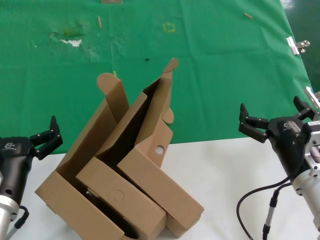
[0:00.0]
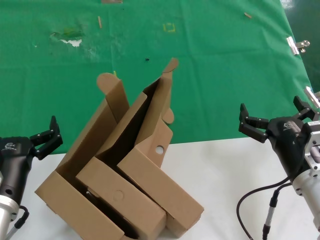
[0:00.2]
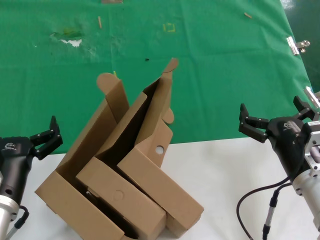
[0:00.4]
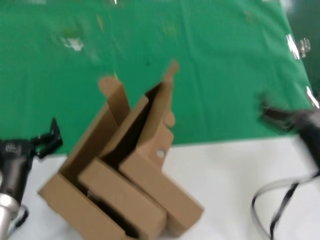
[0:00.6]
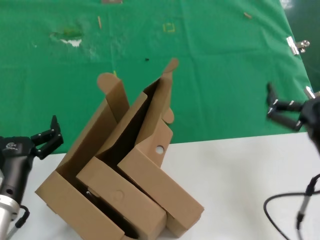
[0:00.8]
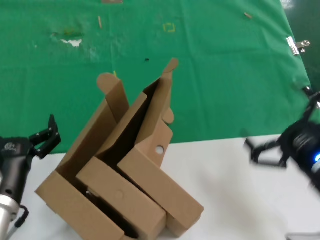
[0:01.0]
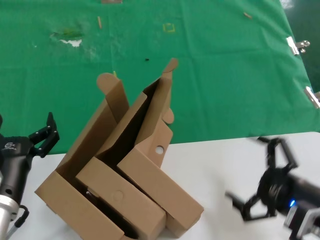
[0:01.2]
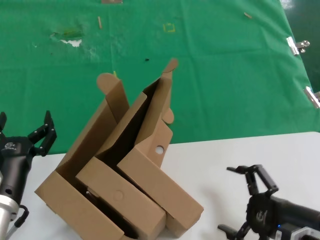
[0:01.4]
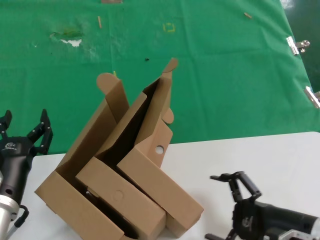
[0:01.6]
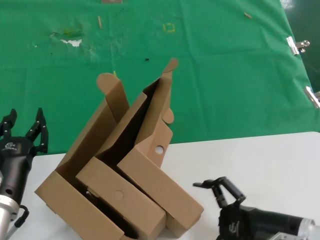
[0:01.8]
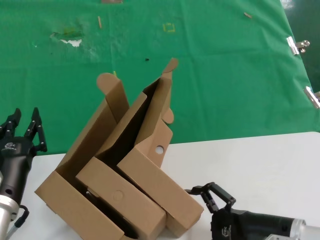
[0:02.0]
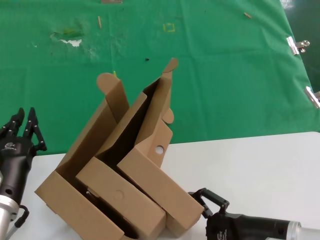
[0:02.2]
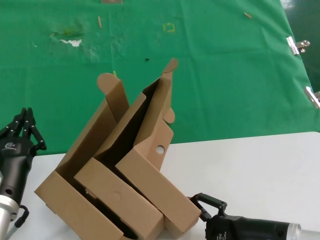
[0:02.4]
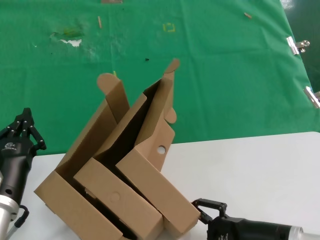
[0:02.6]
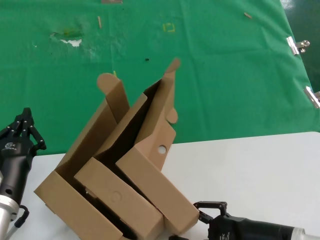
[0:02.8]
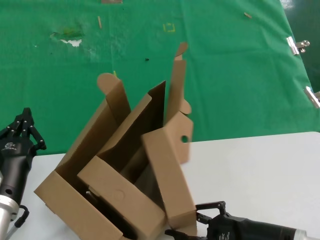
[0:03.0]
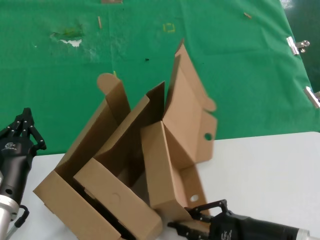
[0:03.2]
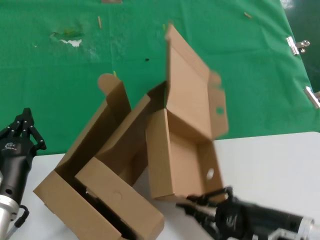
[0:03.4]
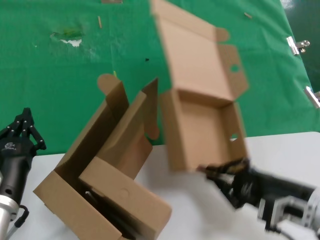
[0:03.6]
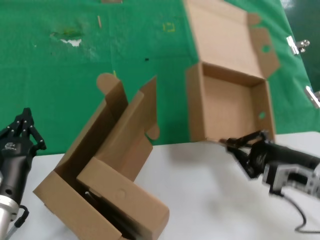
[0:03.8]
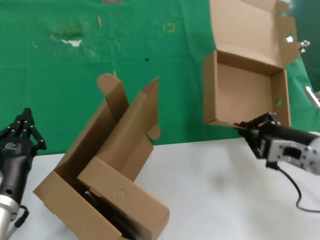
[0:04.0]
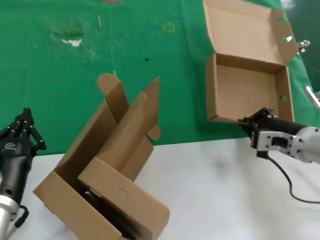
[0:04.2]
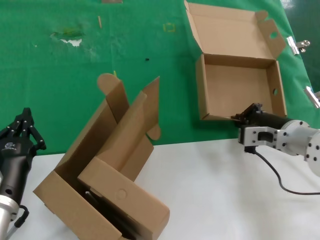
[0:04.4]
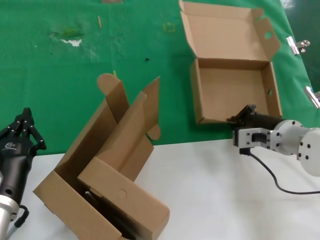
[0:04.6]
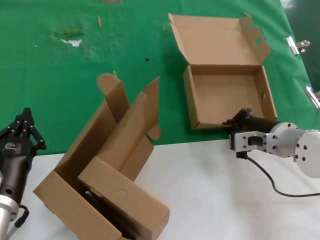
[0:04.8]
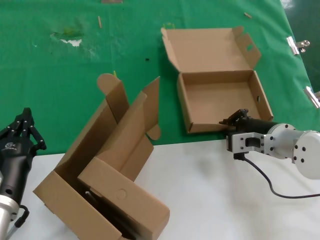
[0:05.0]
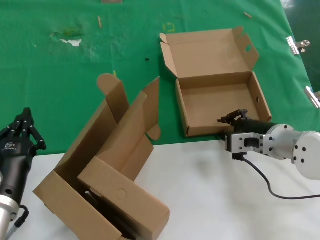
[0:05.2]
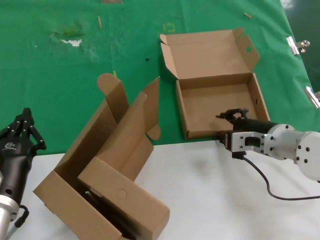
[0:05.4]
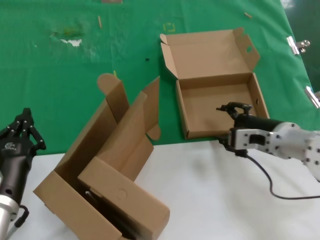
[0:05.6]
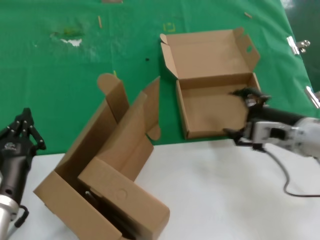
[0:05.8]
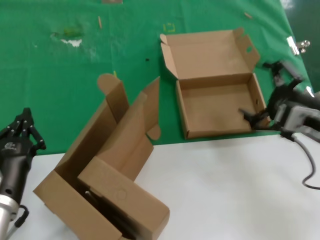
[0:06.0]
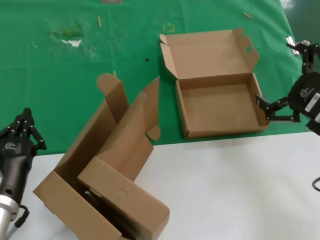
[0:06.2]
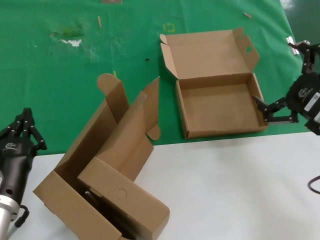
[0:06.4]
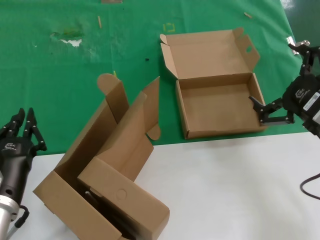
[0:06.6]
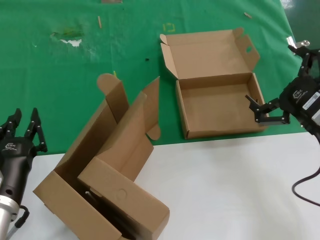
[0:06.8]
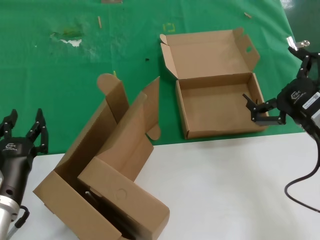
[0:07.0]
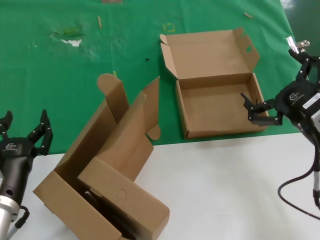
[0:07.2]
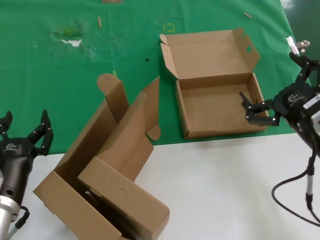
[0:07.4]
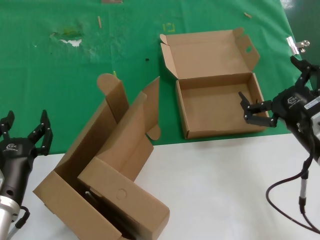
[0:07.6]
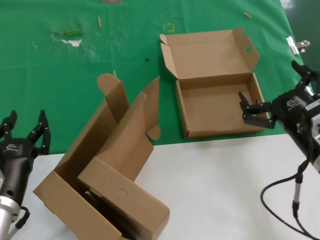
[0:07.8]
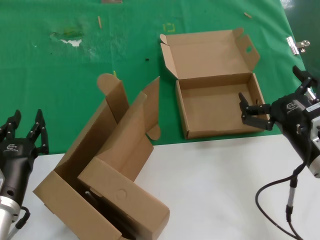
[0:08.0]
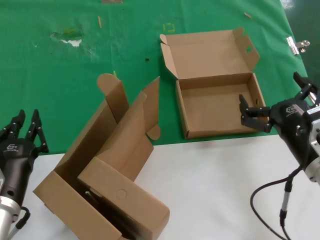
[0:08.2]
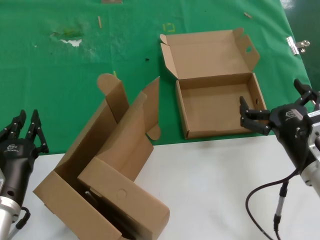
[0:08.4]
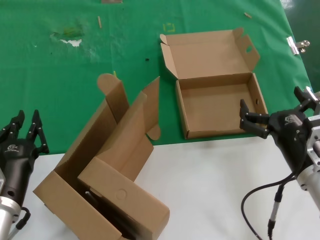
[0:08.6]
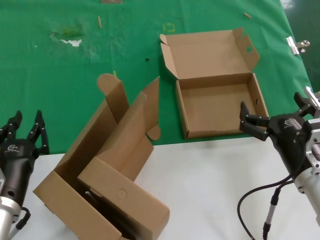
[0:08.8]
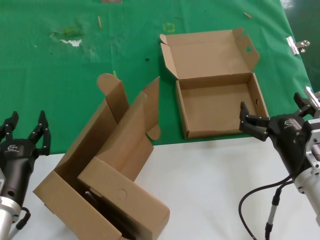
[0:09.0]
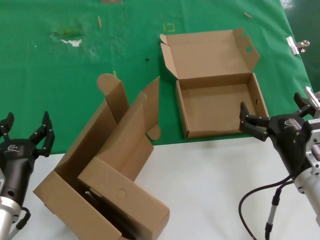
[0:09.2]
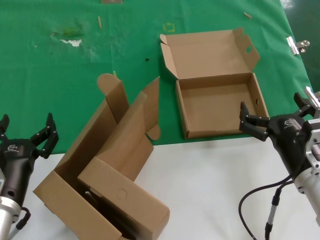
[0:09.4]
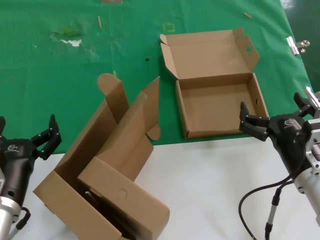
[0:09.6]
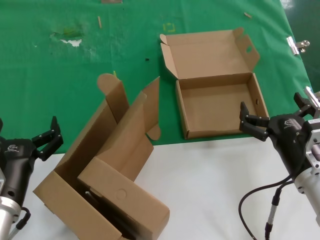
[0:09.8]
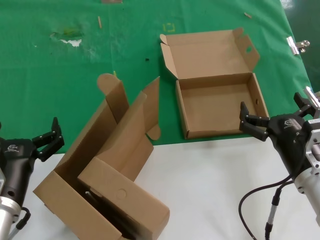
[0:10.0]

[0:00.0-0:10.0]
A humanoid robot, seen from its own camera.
Task of the whole recording: pick up the paper box and put it at the back.
Step, 0:00.0 to 0:03.2: Grasp the paper box.
Step, 0:03.4 to 0:05.4: Place the paper box on the table.
0:00.0 to 0:01.4: The right hand travels backward by about 10 cm.
0:01.4 to 0:02.8: The right hand changes place by about 5 cm.
0:02.8 to 0:04.2: The right hand goes approximately 15 cm forward.
0:05.8 to 0:07.2: The right hand shifts some 10 cm backward.
0:07.2 to 0:08.6: The right hand moves downward, approximately 10 cm.
0:08.6 to 0:10.0: Neither hand changes place.
